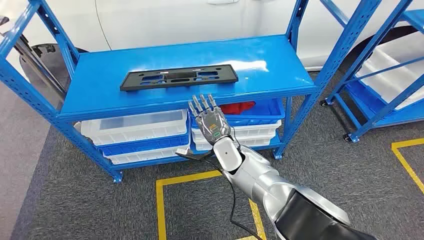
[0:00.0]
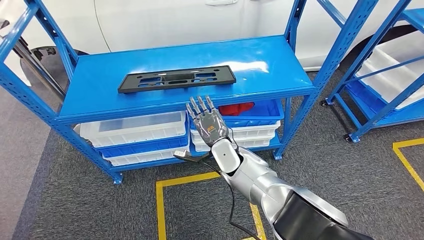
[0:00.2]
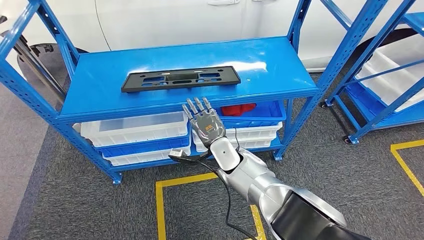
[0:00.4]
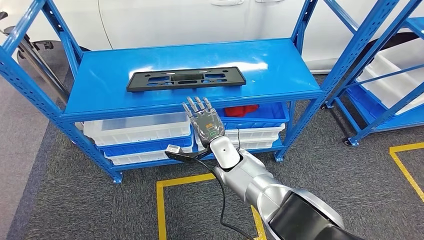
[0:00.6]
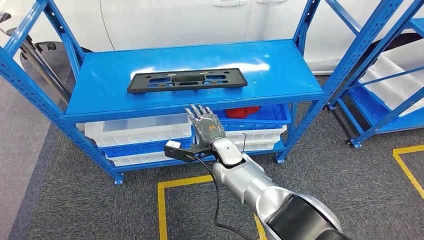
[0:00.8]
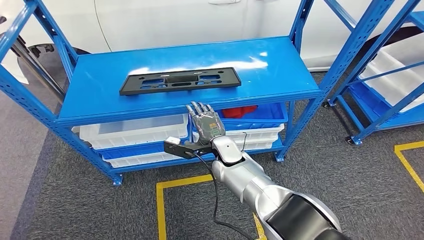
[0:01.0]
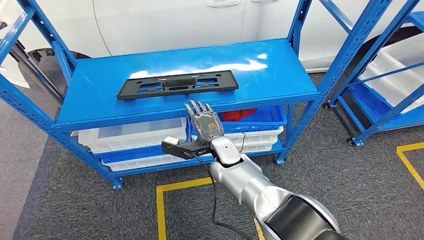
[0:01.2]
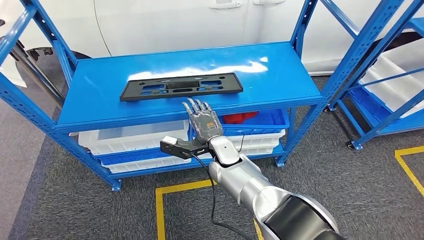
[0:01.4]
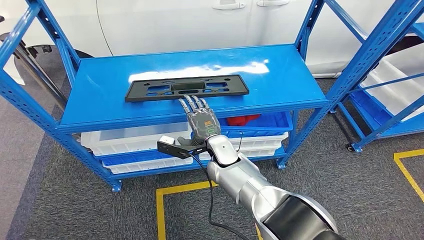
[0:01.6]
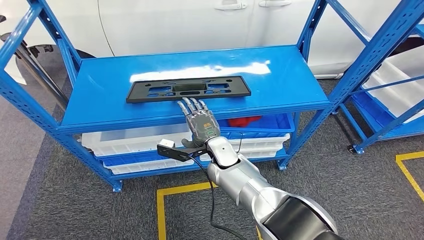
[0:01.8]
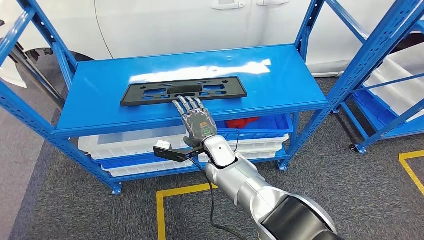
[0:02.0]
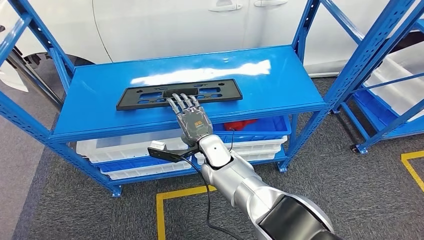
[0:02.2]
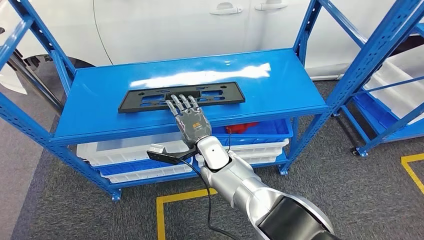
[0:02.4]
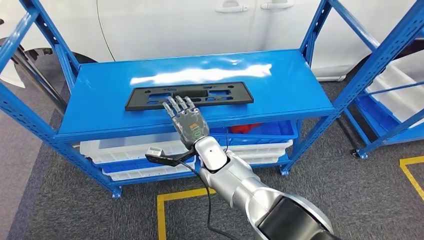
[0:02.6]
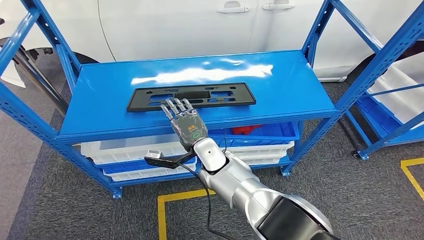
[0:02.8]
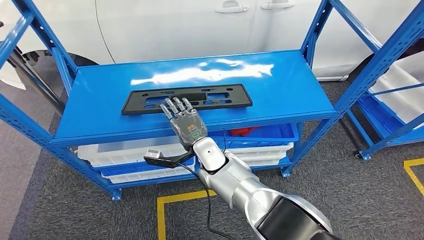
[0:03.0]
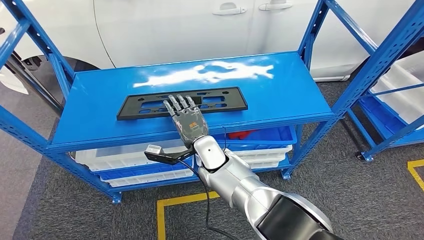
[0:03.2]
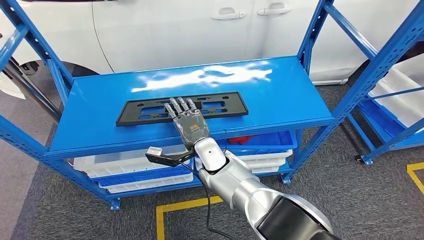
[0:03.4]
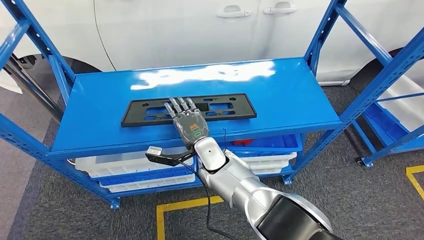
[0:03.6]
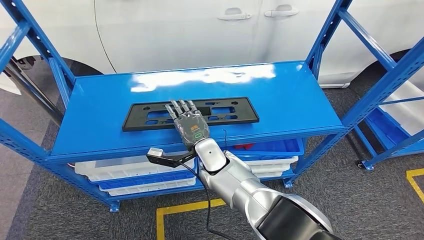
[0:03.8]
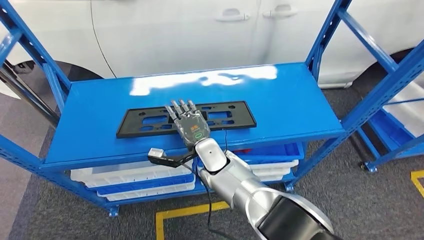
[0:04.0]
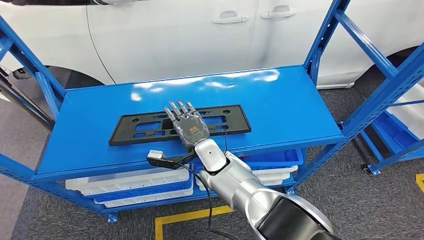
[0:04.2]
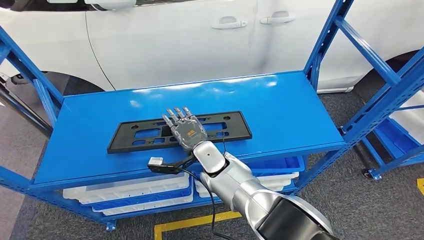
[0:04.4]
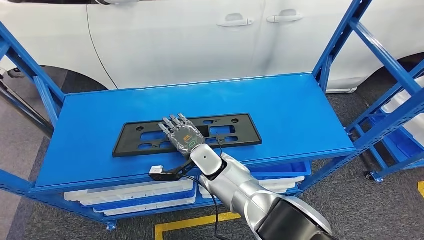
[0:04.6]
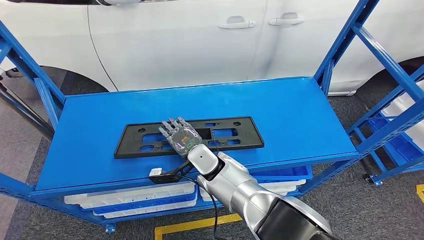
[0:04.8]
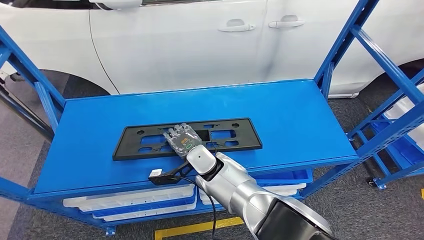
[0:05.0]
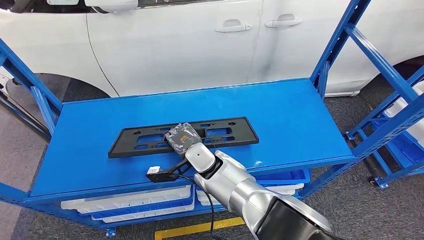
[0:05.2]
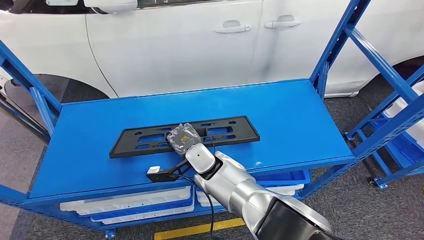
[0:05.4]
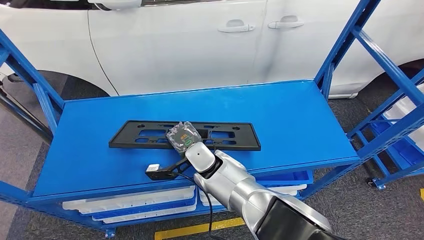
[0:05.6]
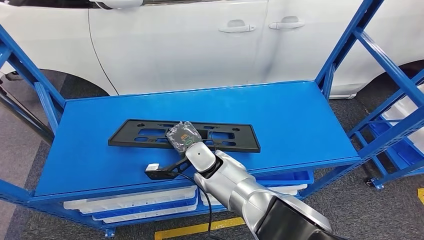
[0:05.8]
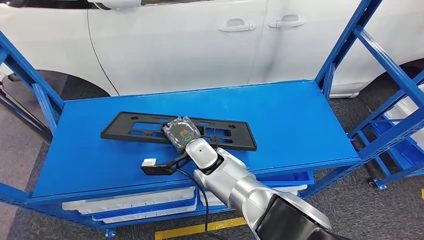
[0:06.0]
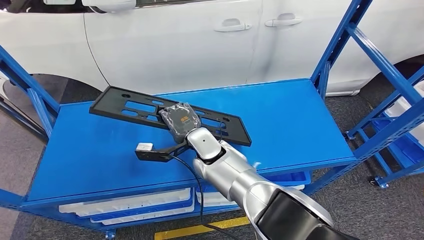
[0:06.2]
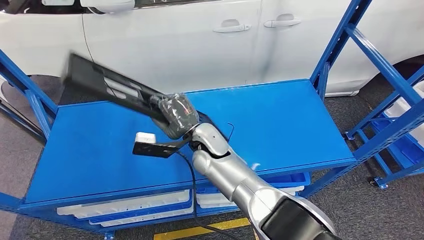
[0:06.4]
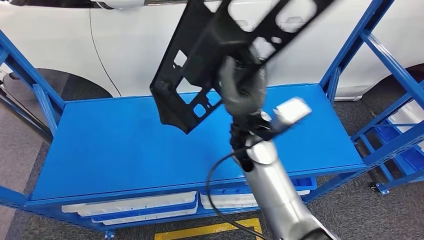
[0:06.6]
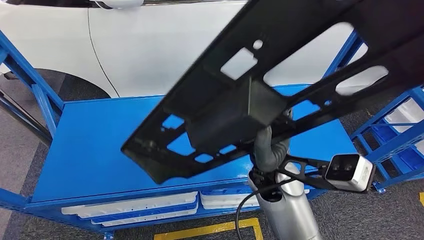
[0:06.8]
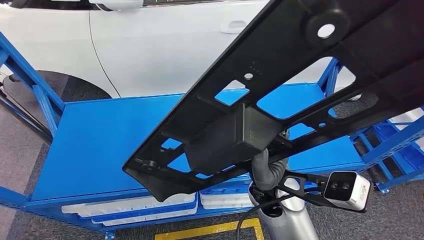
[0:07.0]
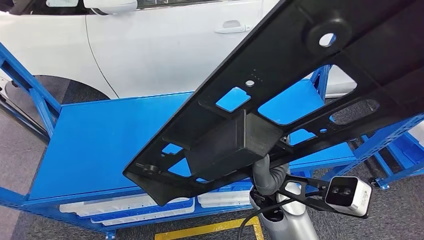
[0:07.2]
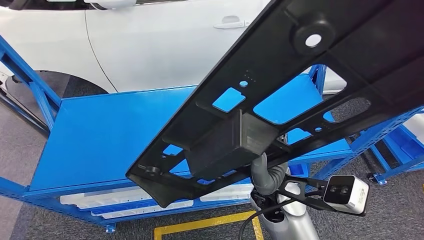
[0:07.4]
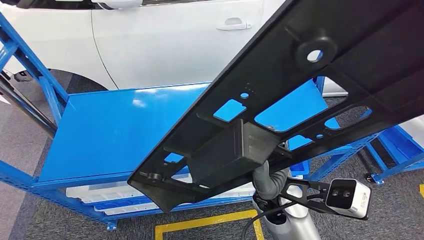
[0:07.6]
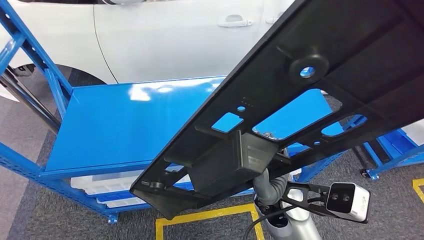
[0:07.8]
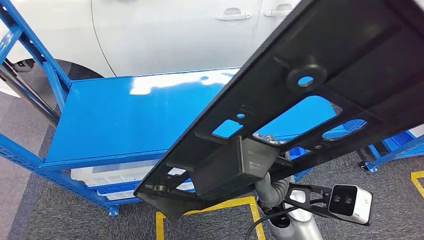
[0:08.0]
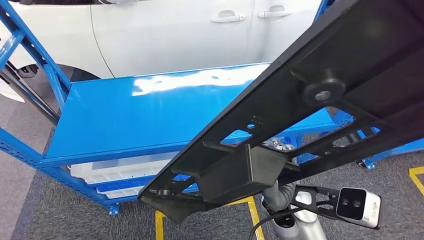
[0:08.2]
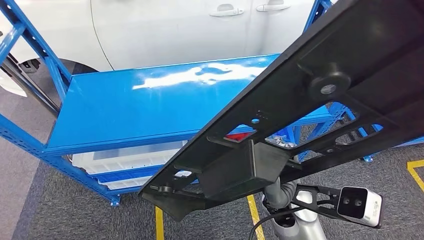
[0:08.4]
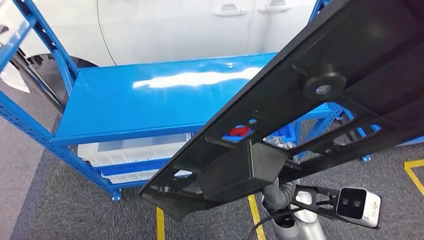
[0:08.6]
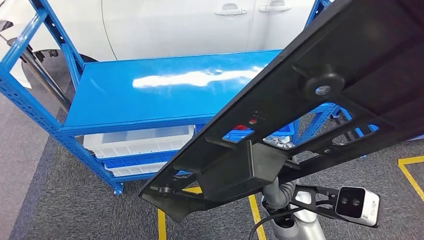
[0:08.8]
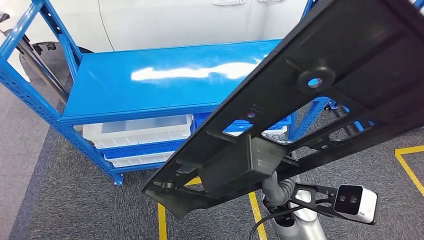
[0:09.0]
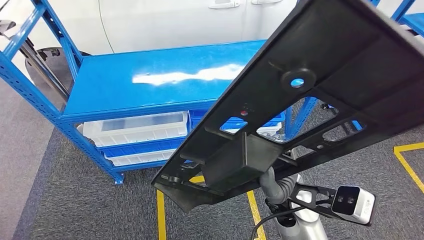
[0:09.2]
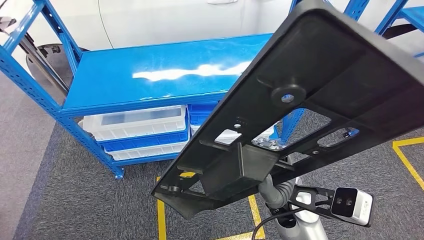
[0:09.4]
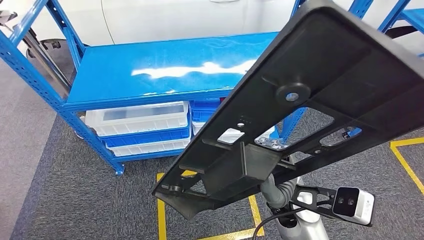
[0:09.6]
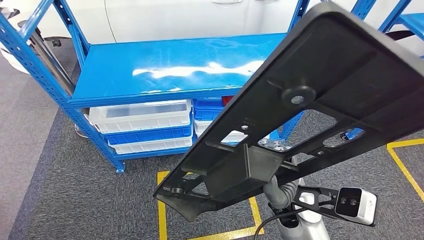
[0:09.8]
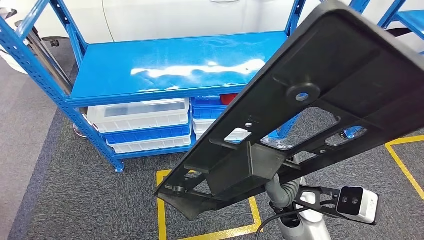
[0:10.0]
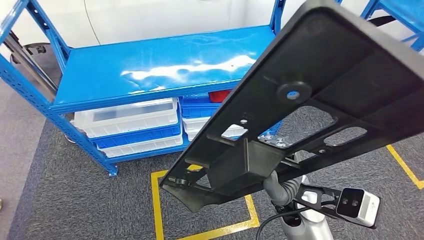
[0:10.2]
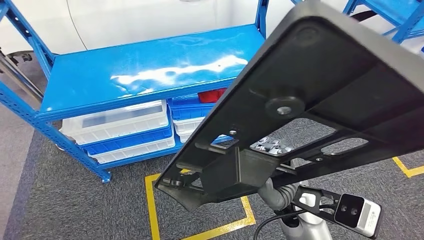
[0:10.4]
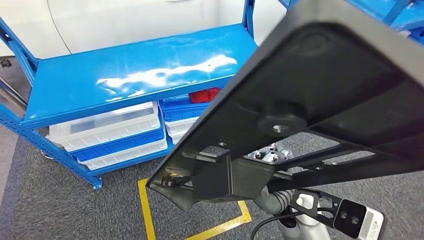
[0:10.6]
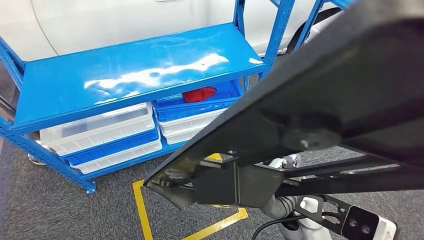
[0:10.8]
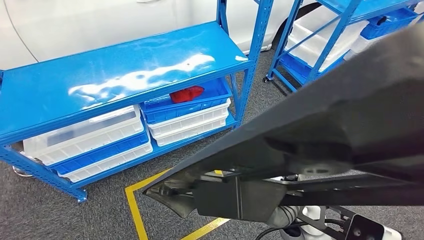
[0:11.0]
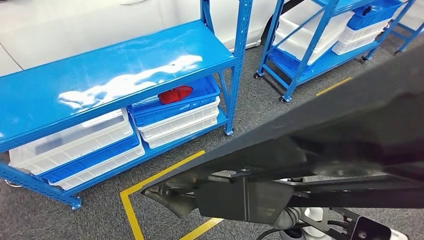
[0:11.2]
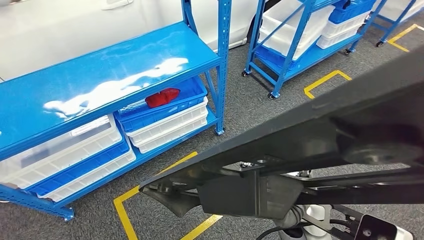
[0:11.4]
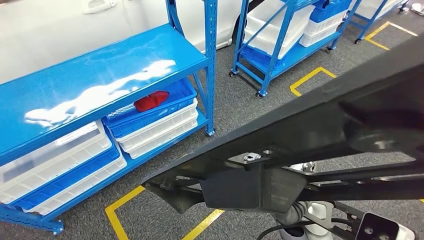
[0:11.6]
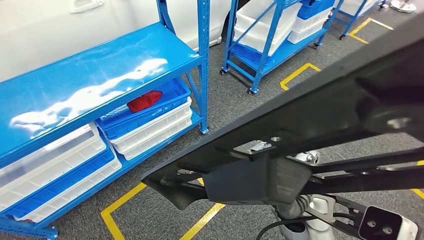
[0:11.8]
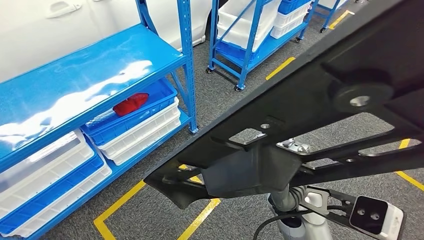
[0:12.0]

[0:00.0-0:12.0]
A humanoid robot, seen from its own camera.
Step, 0:00.0 to 0:07.0: Pick up the large material from the shelf.

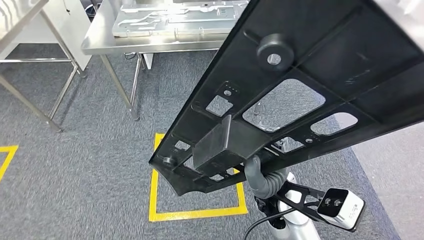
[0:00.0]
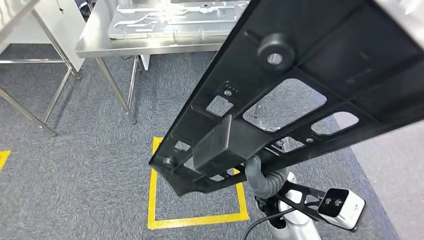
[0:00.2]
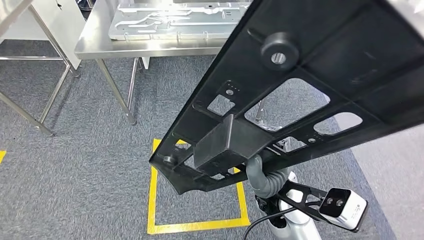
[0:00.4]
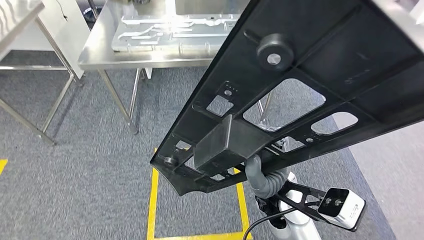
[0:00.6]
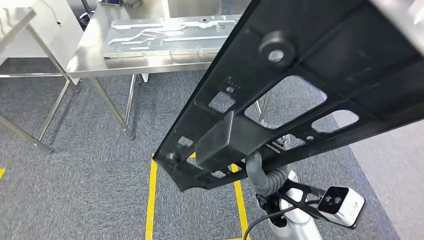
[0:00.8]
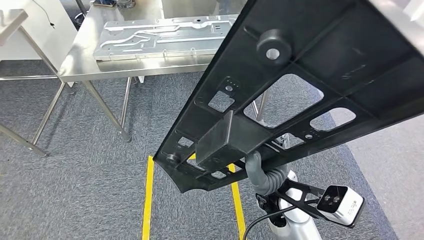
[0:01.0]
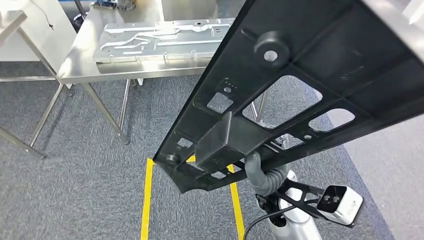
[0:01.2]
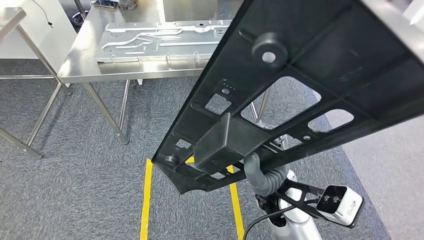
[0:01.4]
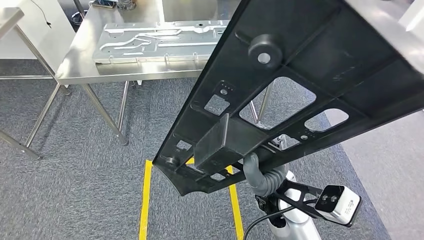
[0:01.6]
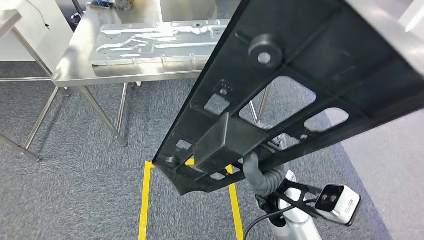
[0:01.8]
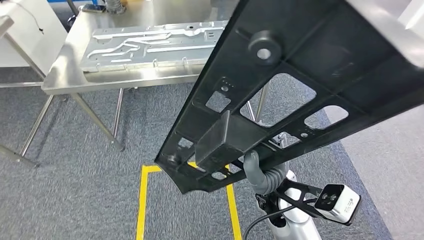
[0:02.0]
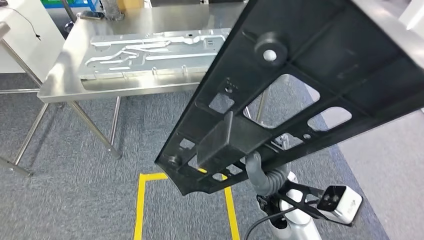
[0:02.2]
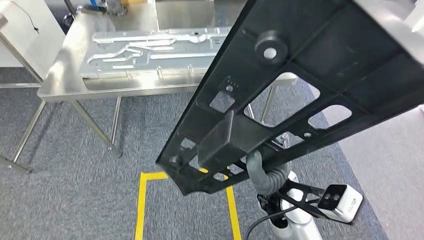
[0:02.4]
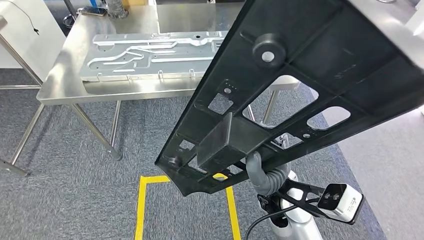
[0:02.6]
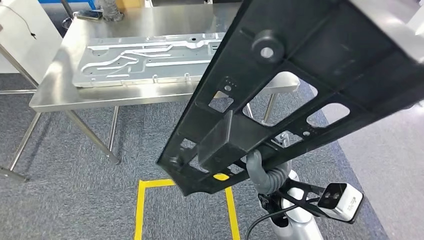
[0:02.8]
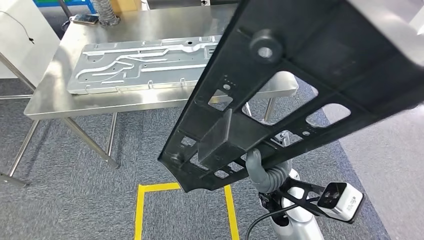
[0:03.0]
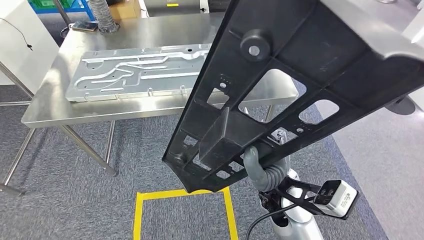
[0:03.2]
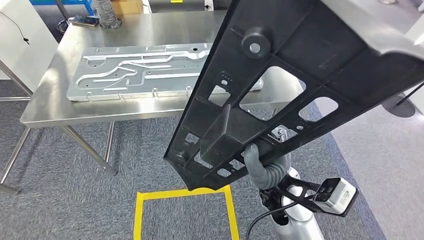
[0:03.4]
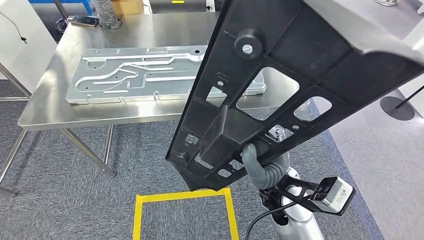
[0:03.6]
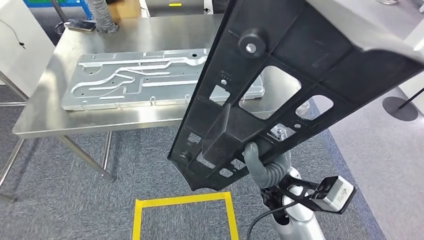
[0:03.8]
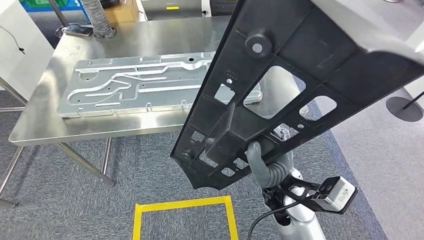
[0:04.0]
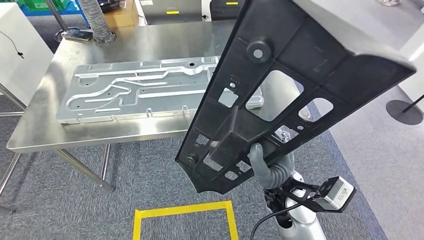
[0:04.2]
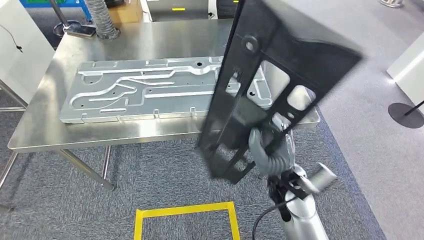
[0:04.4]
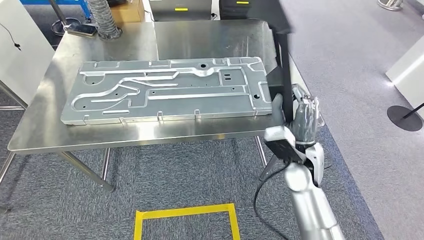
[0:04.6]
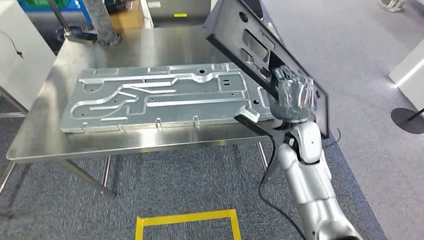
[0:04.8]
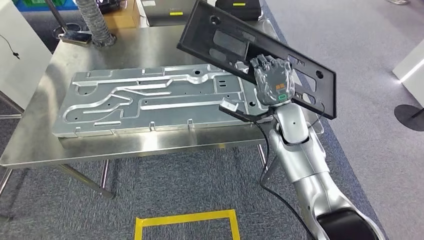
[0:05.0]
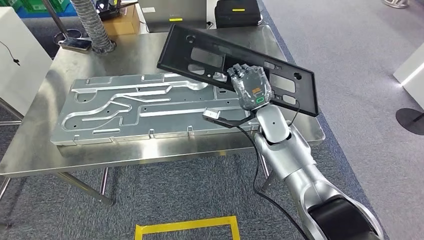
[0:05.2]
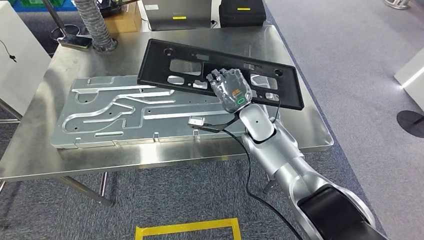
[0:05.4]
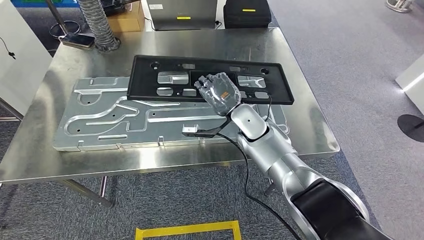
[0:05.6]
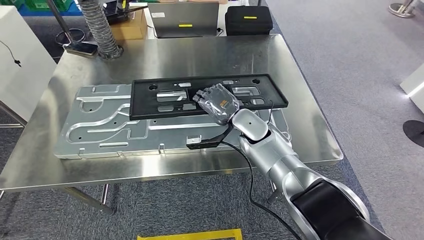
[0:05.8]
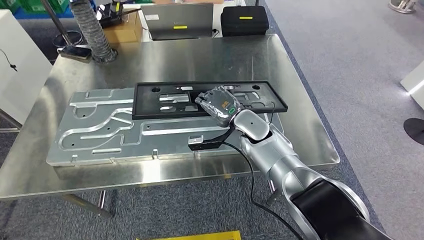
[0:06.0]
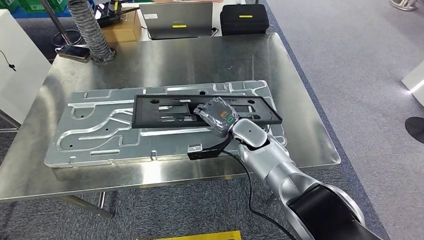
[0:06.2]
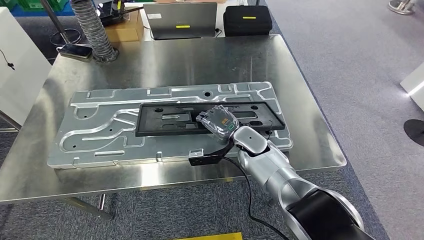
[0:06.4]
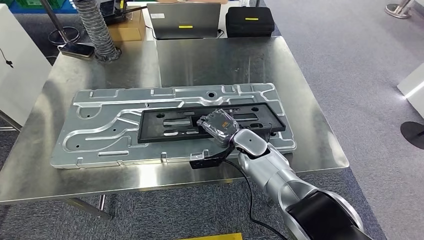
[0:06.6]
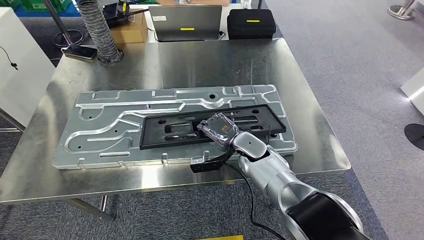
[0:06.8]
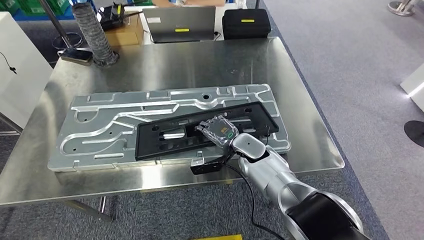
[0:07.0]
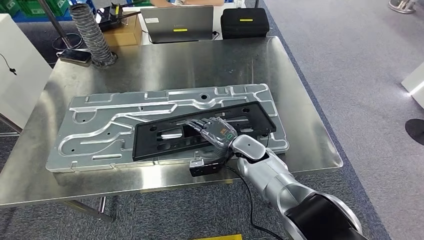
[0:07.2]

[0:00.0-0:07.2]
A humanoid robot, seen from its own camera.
Step, 0:00.0 to 0:05.8: Move the large material to the front of the workbench.
